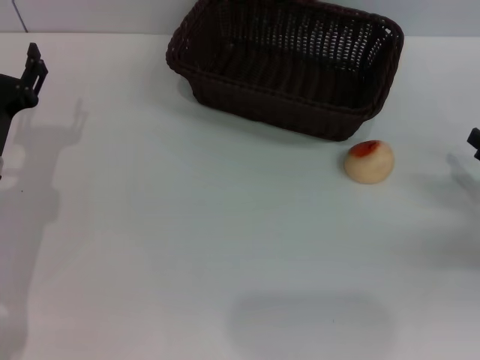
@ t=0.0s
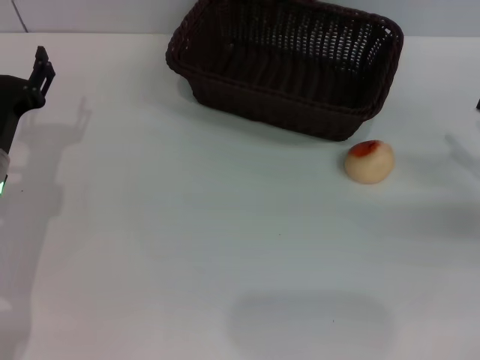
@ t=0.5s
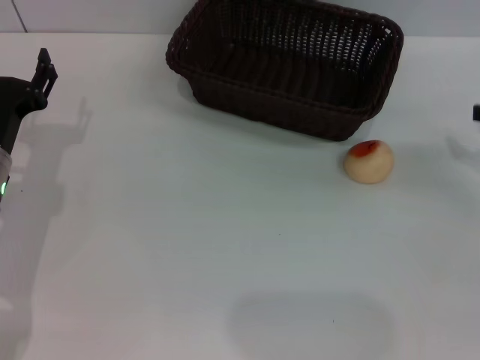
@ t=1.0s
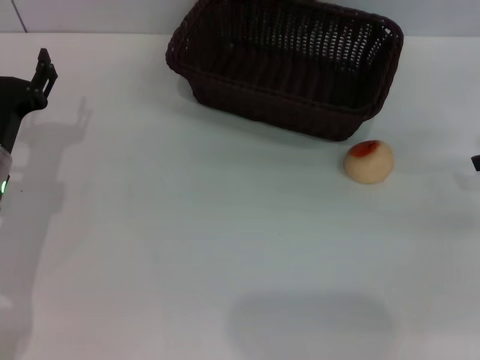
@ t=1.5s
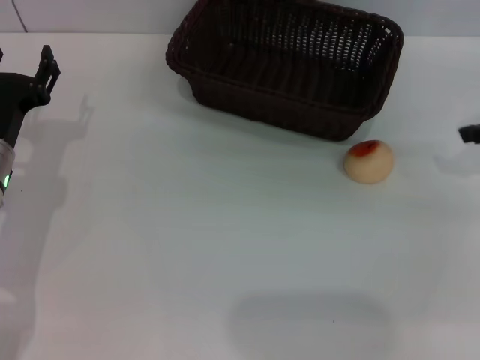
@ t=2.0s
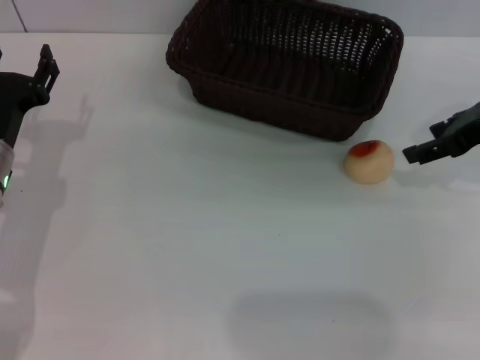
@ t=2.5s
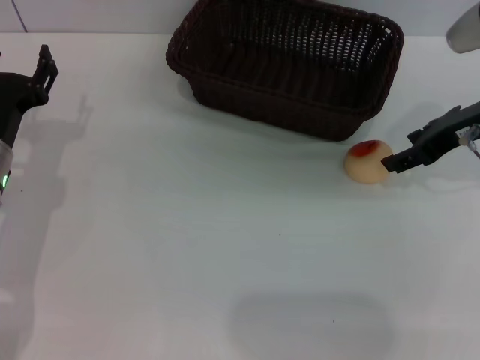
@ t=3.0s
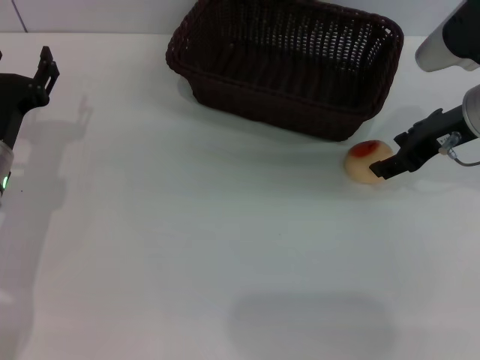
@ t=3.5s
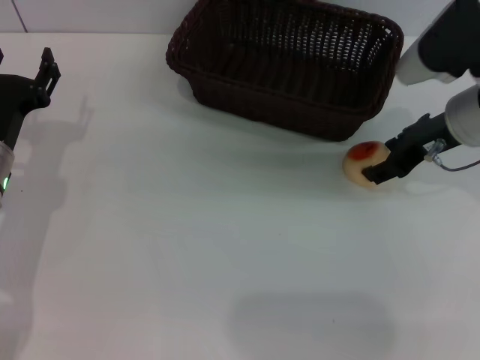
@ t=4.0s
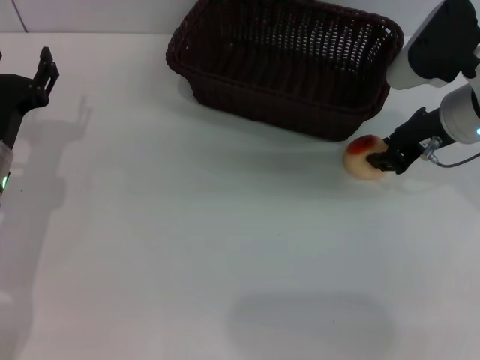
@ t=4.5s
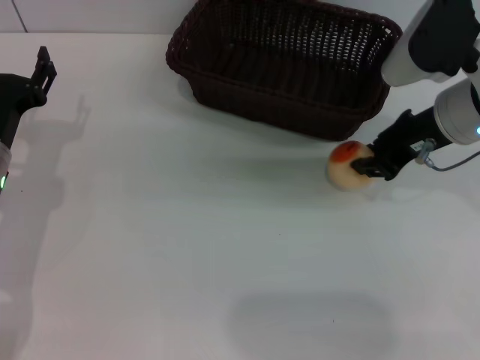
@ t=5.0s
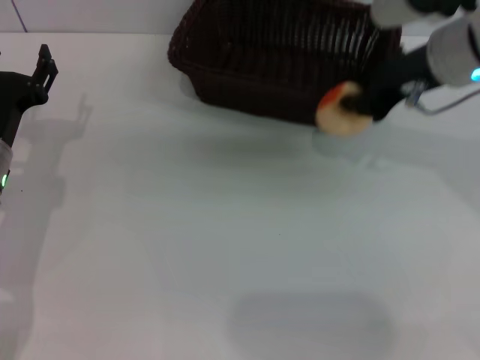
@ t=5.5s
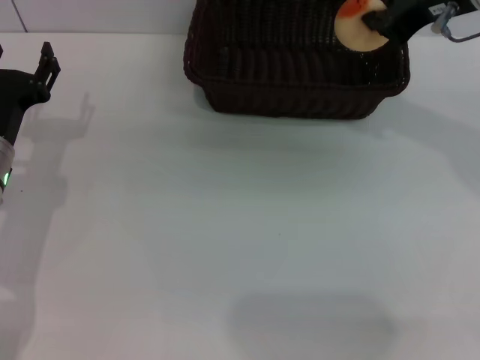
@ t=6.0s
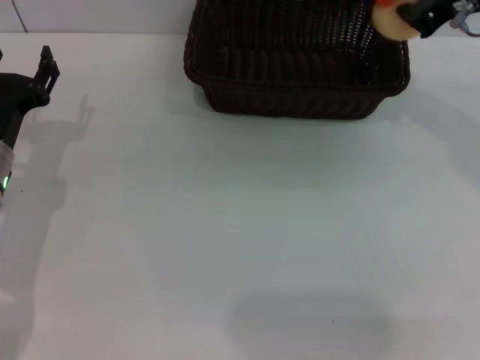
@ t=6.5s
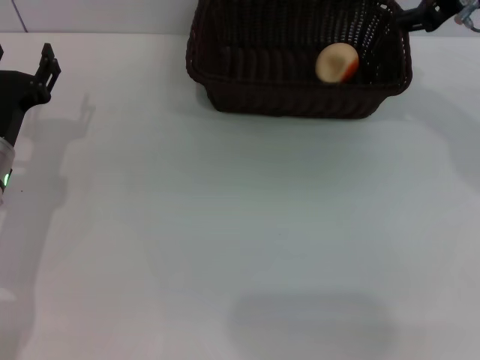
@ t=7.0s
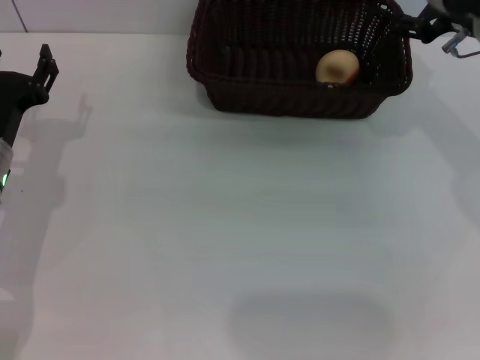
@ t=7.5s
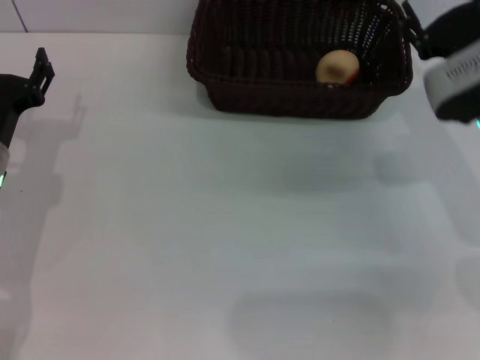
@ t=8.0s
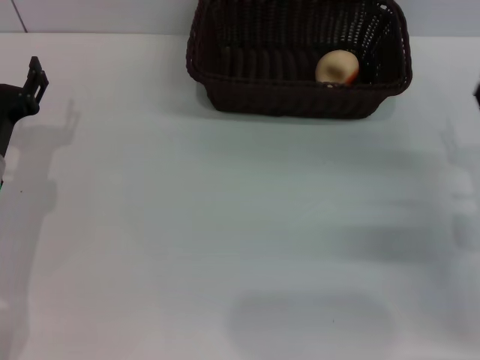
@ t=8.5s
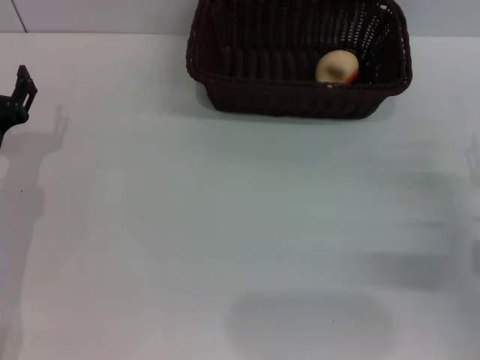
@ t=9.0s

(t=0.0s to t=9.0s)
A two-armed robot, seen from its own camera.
Step, t=0.0s - t=5.5s: Pick up the egg yolk pastry with the right gripper.
Step, t=6.0s - t=6.5s: Place the egg yolk pastry into the basket with the right gripper.
t=0.0s - t=2.0s: The right gripper moves upward and forward, some 20 cm.
t=2.0s - t=4.5s: The right gripper shifts some 15 cm to the left and downward.
t=4.5s - t=7.0s: The right gripper shifts roughly 10 cm upward, and closes, then reopens.
t=7.0s - t=9.0s: The right gripper moves downward and backward, about 25 cm, and opens.
